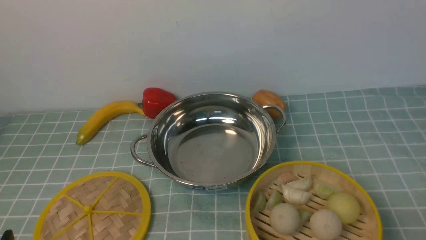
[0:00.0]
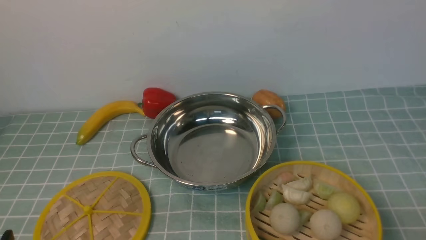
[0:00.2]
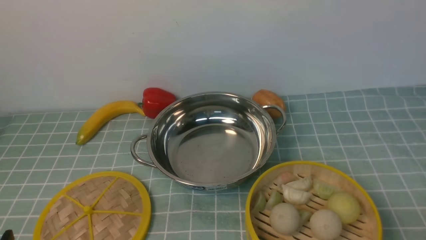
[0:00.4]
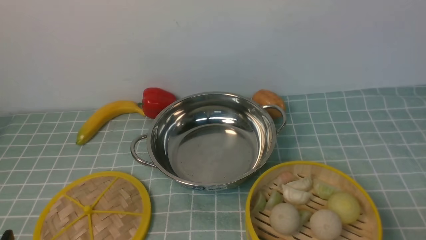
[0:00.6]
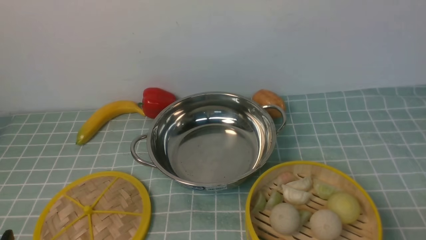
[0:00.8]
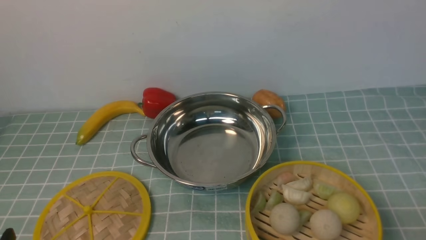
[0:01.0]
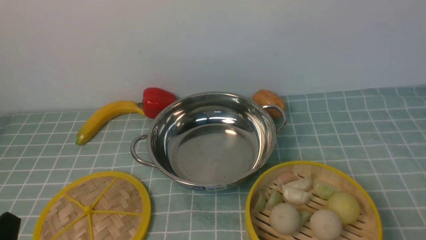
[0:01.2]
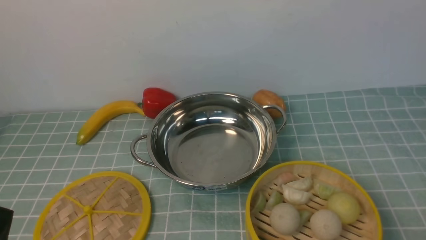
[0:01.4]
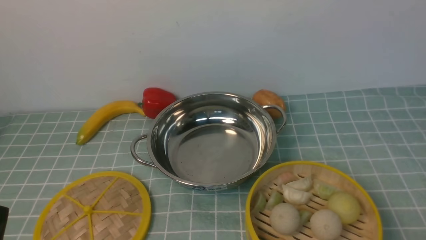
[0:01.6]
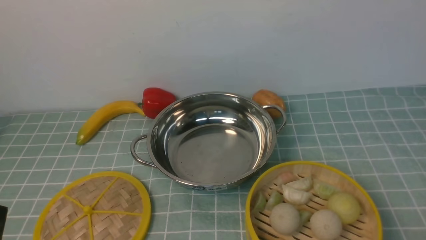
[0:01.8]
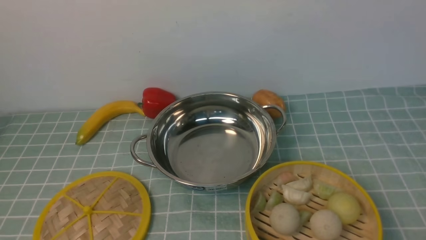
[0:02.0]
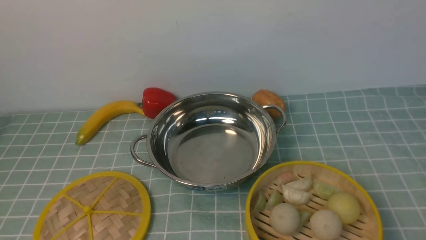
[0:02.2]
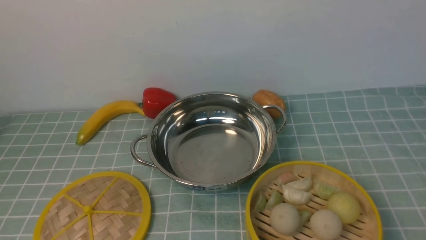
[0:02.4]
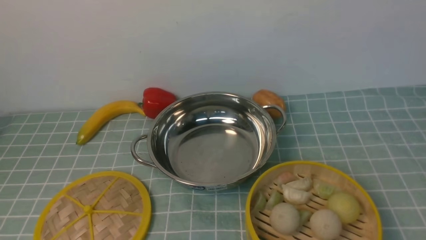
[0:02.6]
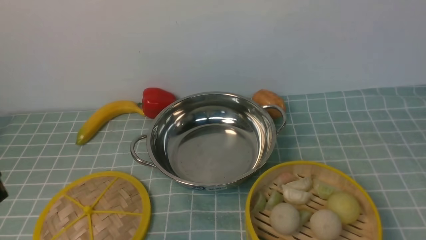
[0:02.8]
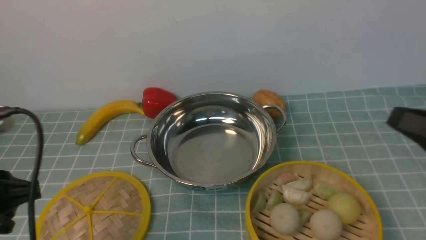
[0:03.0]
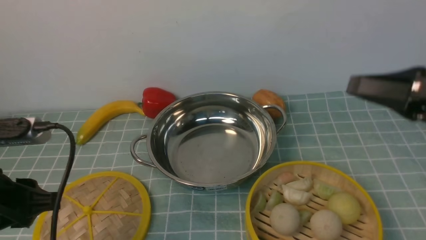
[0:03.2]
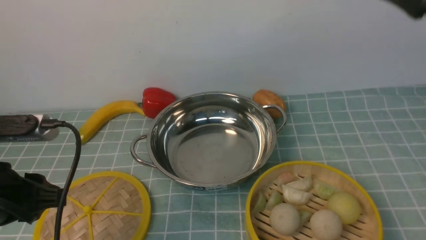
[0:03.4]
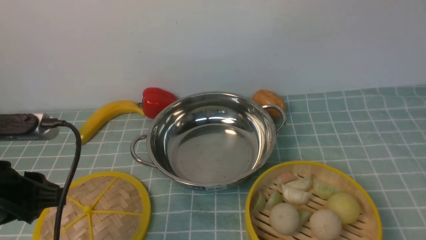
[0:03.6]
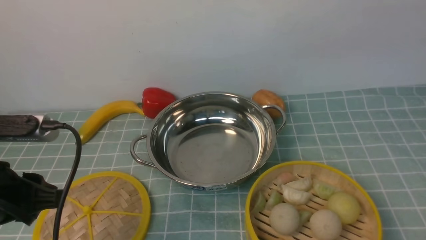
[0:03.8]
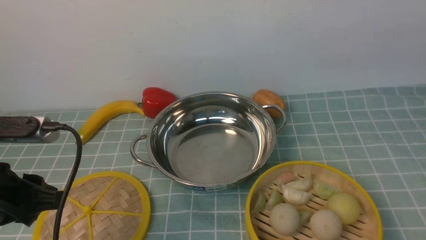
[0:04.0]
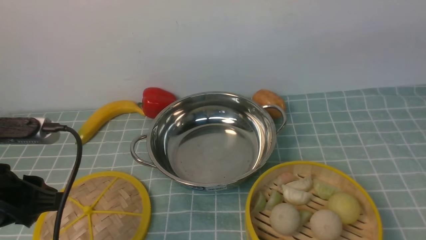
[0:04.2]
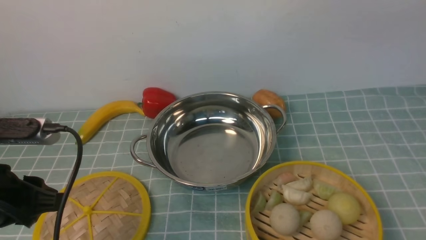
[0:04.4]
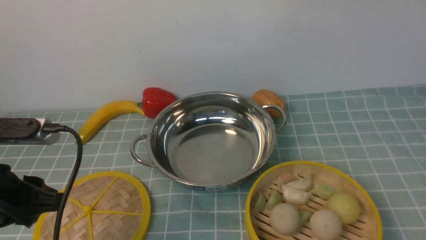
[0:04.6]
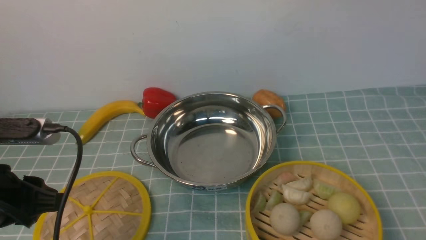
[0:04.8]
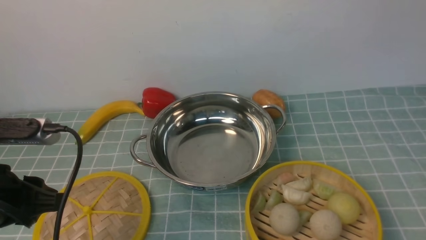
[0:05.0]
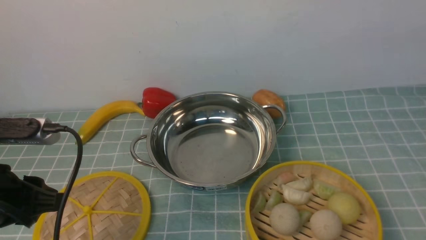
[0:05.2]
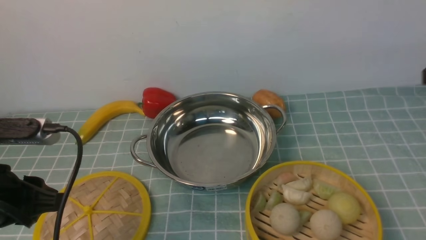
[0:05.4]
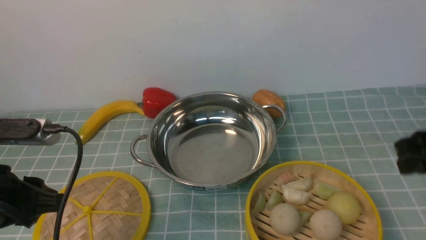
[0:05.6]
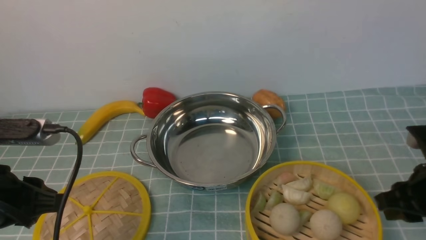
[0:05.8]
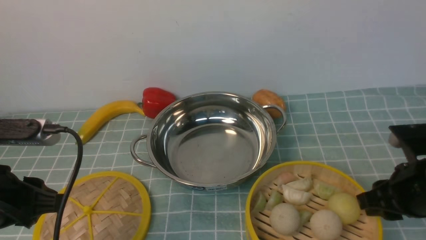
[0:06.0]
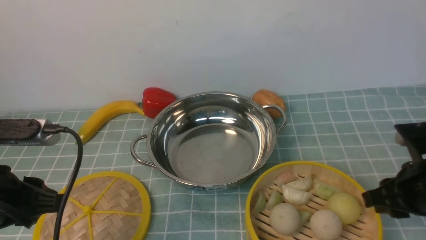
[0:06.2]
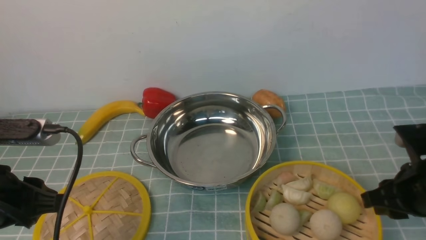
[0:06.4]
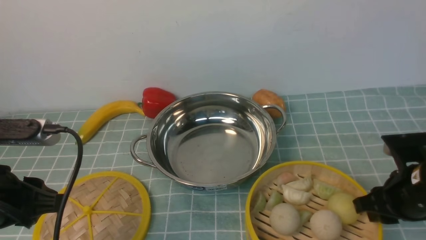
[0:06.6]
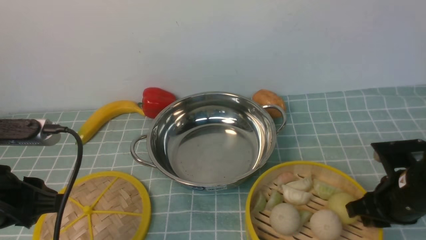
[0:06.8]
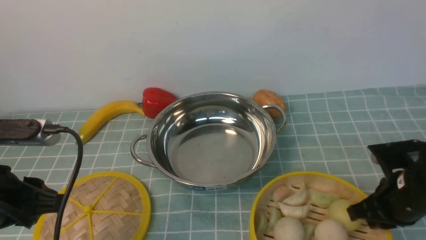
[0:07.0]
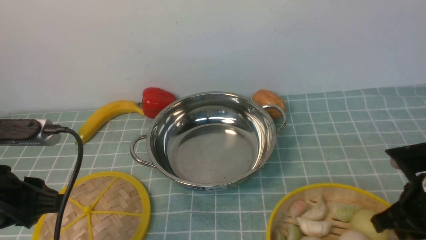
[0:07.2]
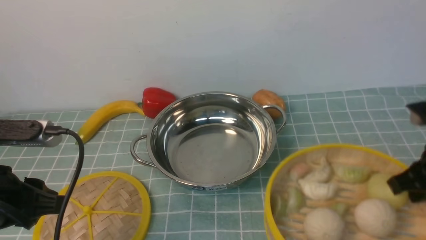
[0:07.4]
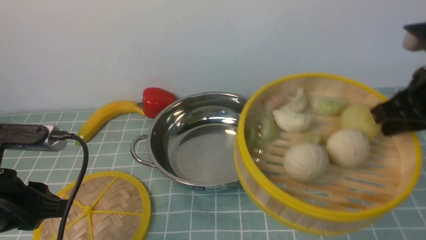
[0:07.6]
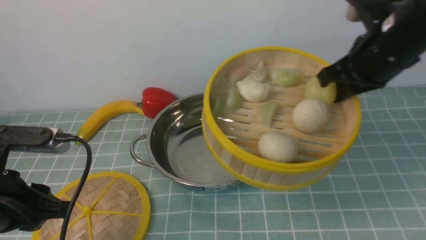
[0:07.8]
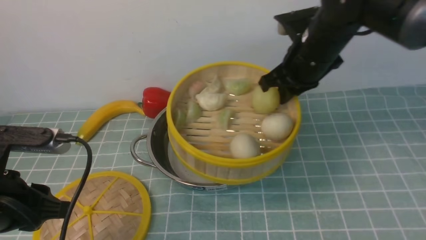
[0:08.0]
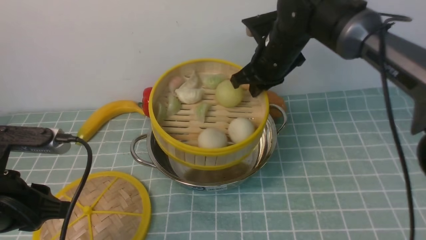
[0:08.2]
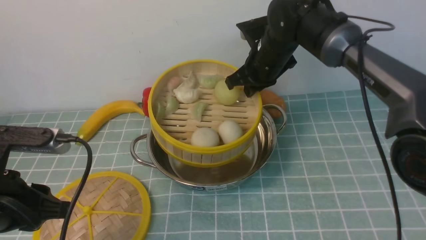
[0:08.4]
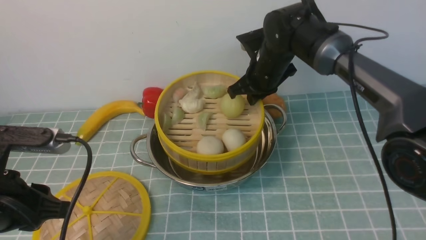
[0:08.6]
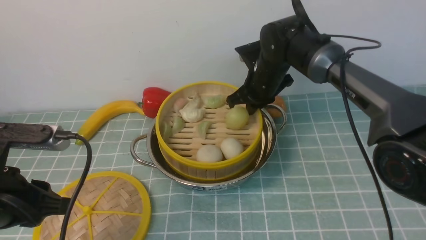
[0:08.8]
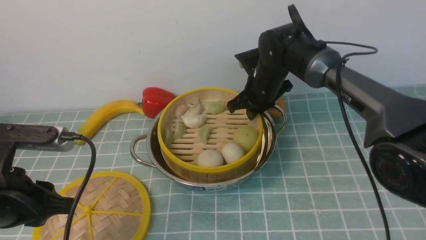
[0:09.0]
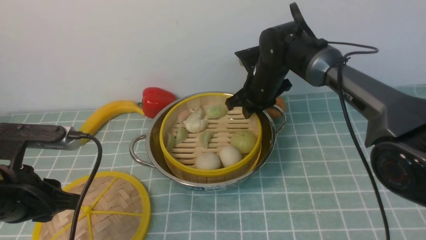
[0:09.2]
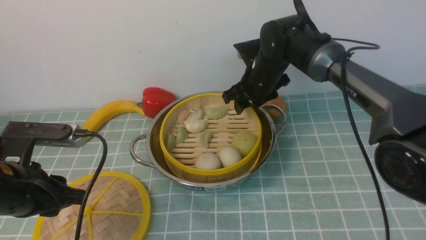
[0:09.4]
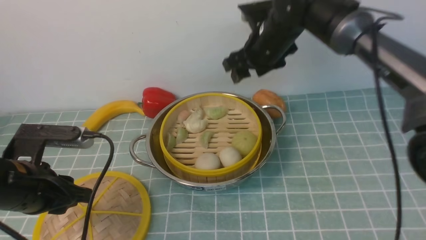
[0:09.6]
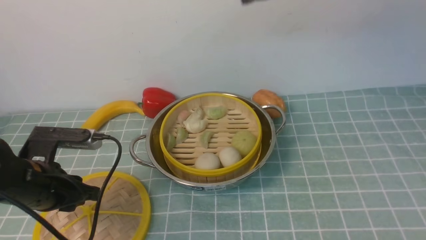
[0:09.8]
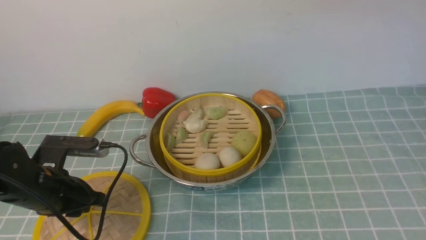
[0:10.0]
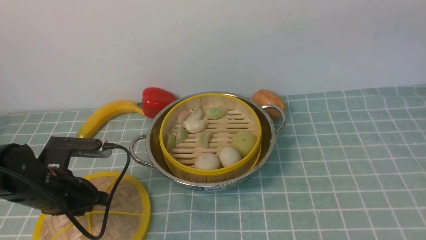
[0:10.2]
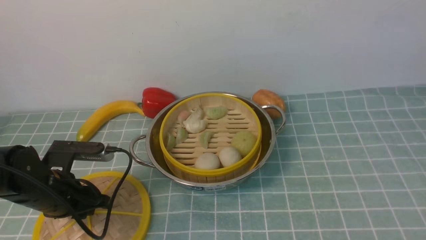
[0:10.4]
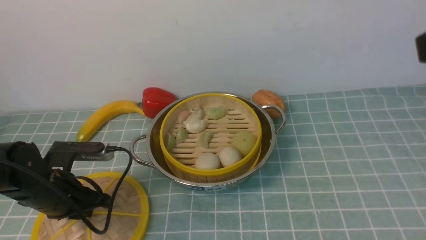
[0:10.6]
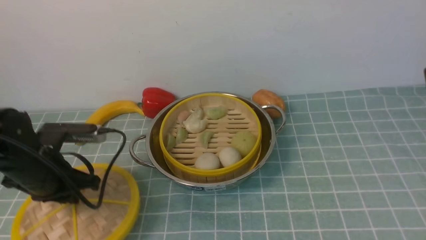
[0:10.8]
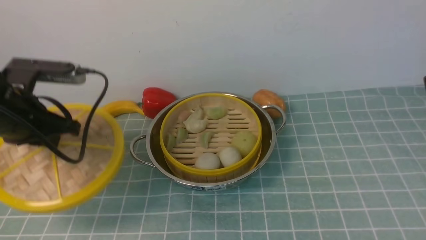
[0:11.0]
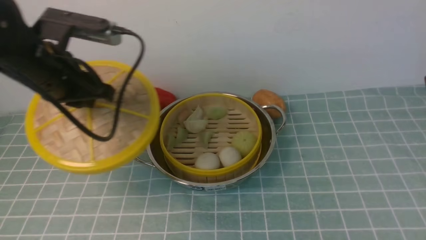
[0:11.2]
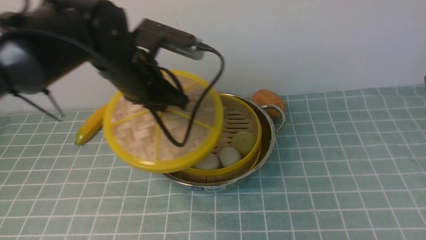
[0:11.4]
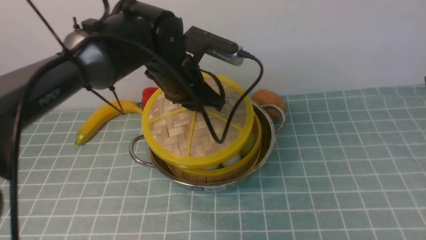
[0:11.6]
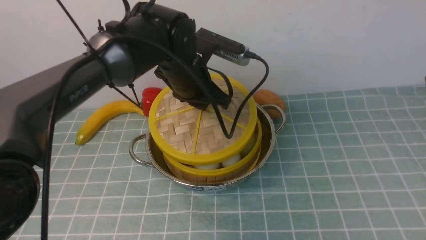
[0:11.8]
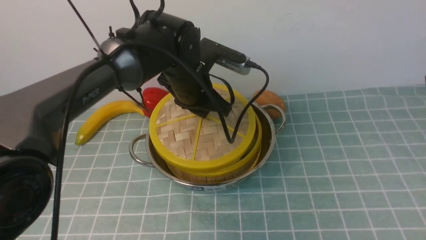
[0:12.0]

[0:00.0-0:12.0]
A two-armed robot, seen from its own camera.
Task of the whole recording: place the steamer in the pot on the blue tablecloth, and put the lid on the steamer.
Step, 0:00.0 to 0:07.6: use the right arm to lift the steamer closest to it.
Step, 0:07.8 to 0:09.2: use the right arm to put the steamer into the iron steamer pot in the middle.
Step, 0:09.4 to 0:11.0: use the left arm to lift the lid of the steamer.
0:01.6 to 0:03.0: The two grippers go approximately 15 cm upward and forward.
0:03.0 to 0:04.4: The right gripper travels forward and upward by some 20 cm; the left gripper shifts by some 5 cm.
0:04.4 to 0:06.0: The right gripper moves downward, approximately 20 cm.
0:06.0 to 0:07.6: The right gripper travels upward by about 10 cm, and closes.
0:07.6 to 0:09.0: The right gripper is displaced forward, to the left and downward by approximately 30 cm.
0:09.0 to 0:10.4: The left gripper heads downward and forward, covering approximately 15 cm; the right gripper heads upward, backward and to the right, covering about 40 cm, and opens.
0:10.4 to 0:12.0: The right gripper goes approximately 10 cm downward and backward. Meanwhile the left gripper goes some 25 cm to the right, forward and upward.

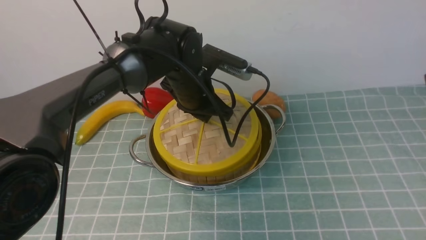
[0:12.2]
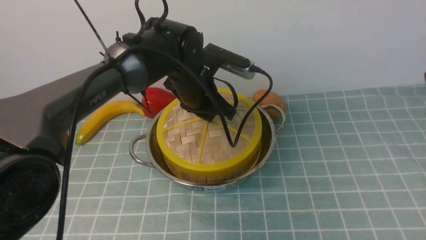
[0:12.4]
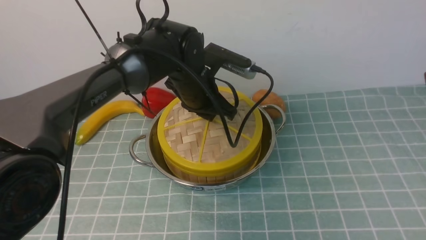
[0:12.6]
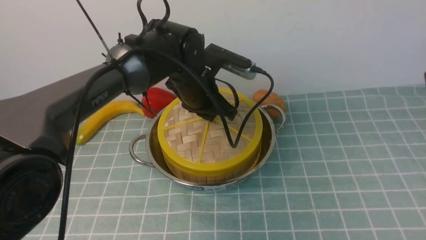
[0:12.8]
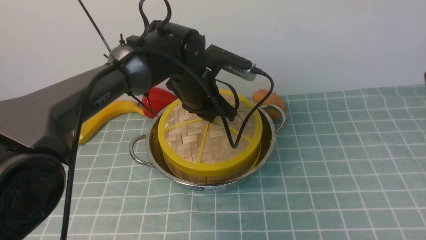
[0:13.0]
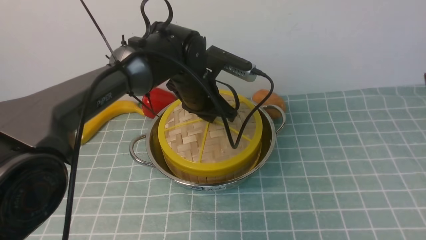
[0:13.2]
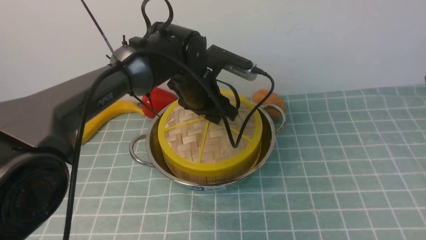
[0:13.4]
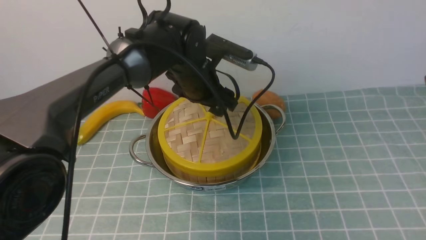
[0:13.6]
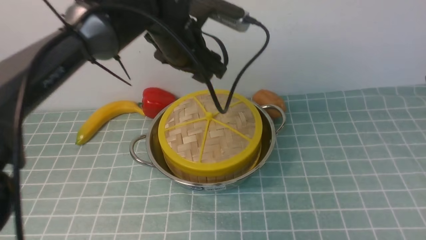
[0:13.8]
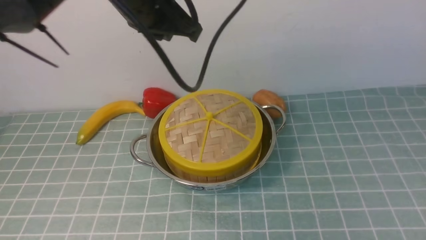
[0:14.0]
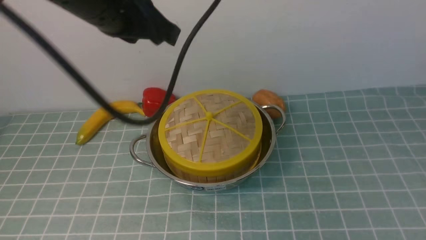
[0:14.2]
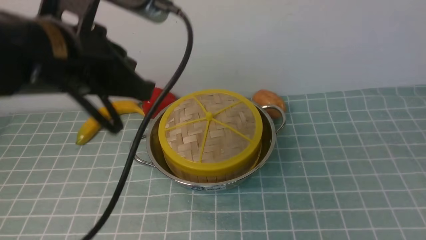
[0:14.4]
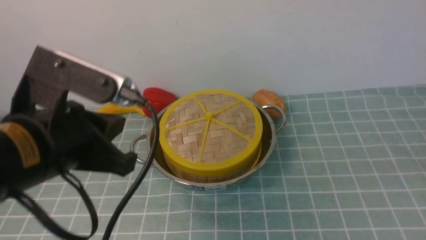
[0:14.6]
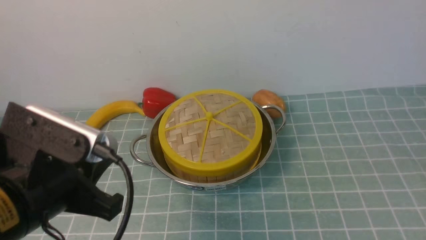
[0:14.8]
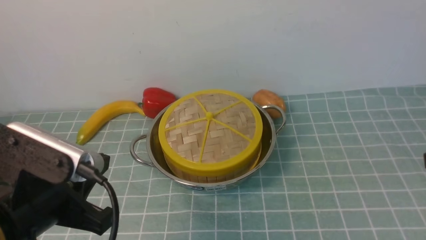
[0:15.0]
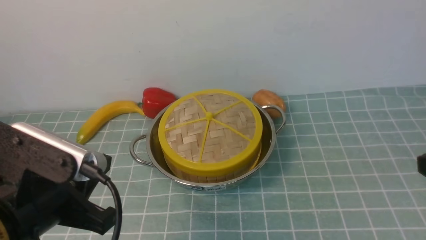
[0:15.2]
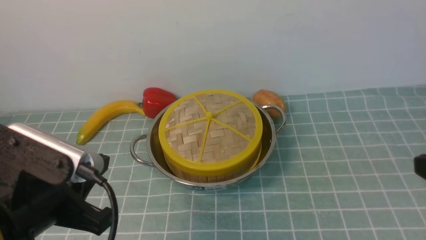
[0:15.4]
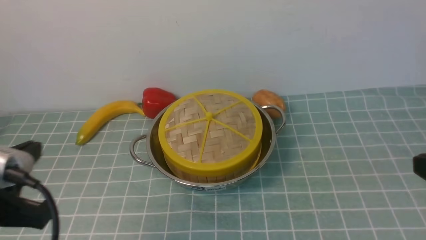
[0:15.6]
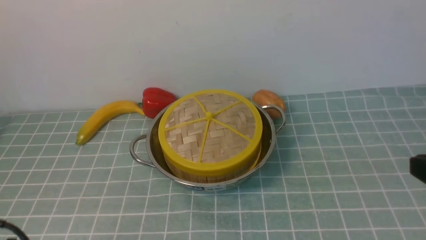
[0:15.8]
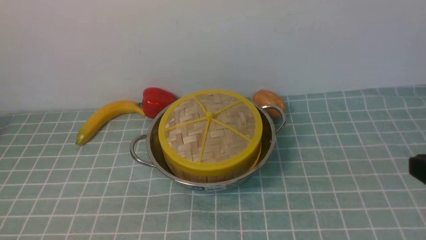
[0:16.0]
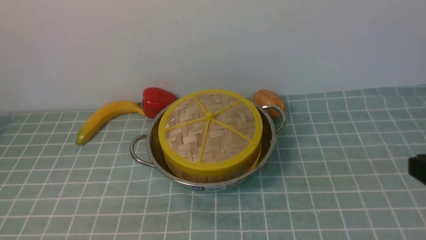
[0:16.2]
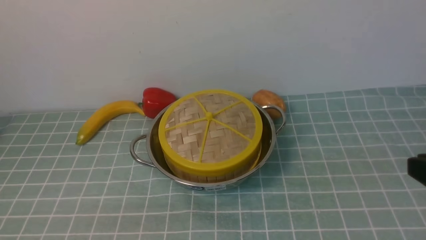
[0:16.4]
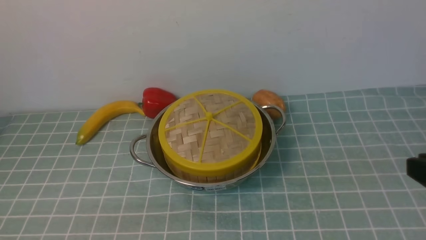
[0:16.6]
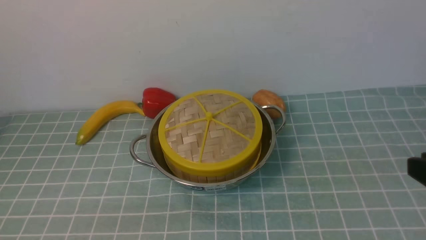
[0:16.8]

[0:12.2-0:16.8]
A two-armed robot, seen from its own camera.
Task of the whole recording: place the steamer in the pot on the blue tablecloth, and put the lid on the steamer.
Step, 0:12.2 to 0:14.2: use the left arm to place the steamer lid on the steamer.
0:12.2 to 0:13.8: The left gripper moves upward, approximately 5 cm, and opens.
0:13.8 to 0:15.2: The left gripper travels backward and to the left by about 30 cm, and closes up. The right gripper is displaced downward by approximately 15 cm, and closes its fingers.
0:15.2 to 0:16.8: The left gripper shifts approximately 15 cm downward, backward and to the left.
